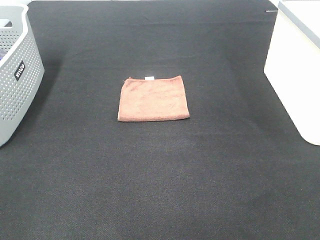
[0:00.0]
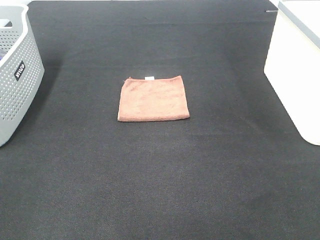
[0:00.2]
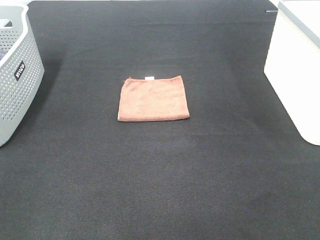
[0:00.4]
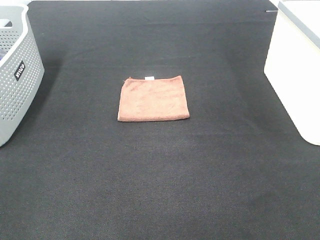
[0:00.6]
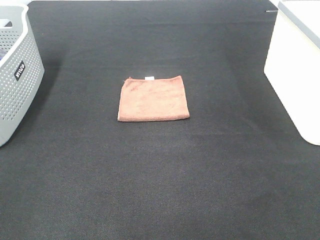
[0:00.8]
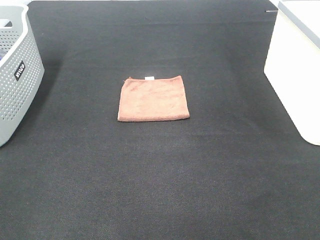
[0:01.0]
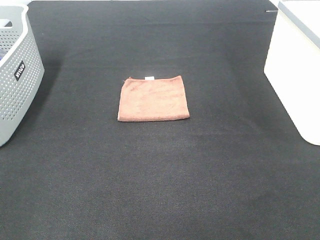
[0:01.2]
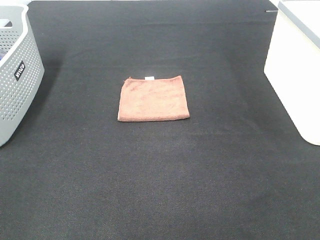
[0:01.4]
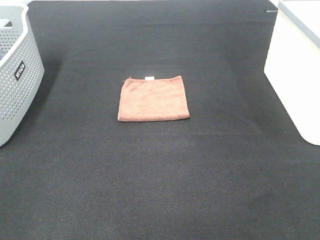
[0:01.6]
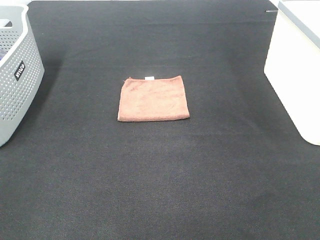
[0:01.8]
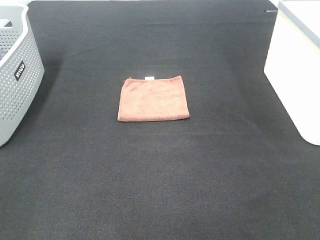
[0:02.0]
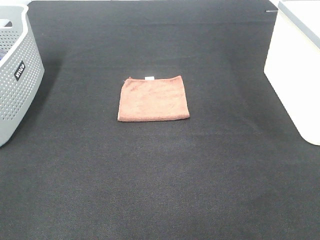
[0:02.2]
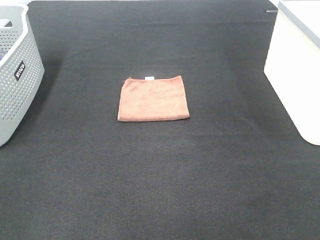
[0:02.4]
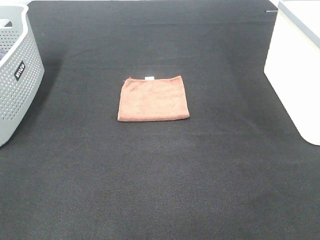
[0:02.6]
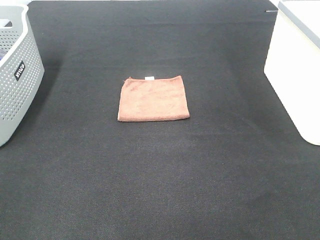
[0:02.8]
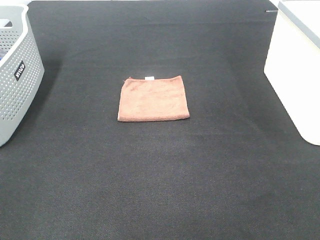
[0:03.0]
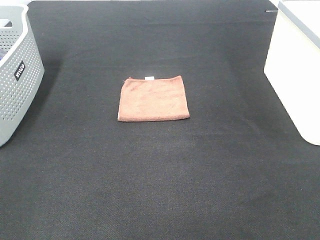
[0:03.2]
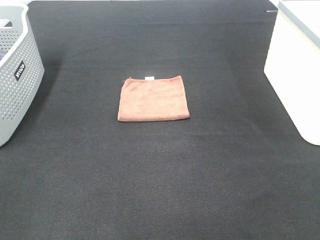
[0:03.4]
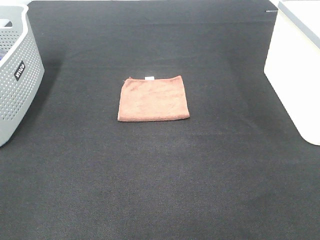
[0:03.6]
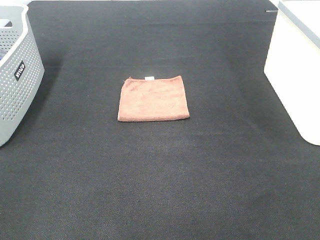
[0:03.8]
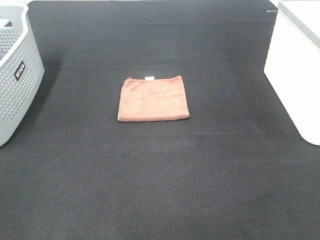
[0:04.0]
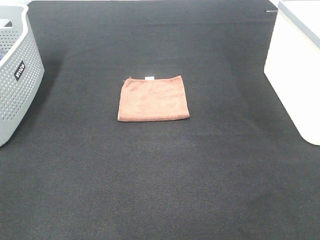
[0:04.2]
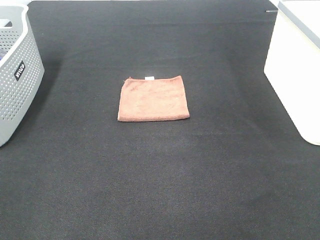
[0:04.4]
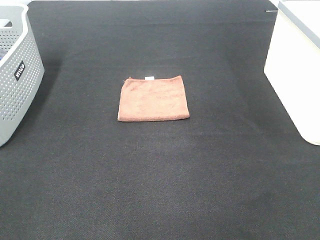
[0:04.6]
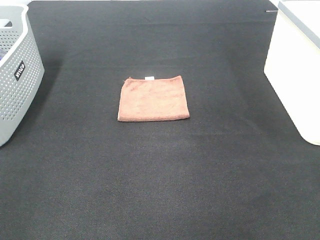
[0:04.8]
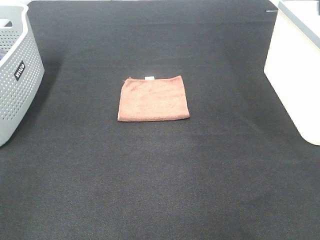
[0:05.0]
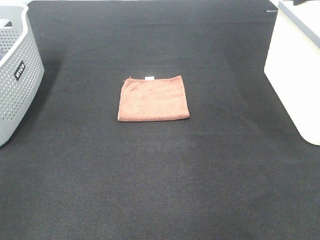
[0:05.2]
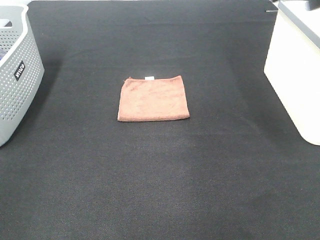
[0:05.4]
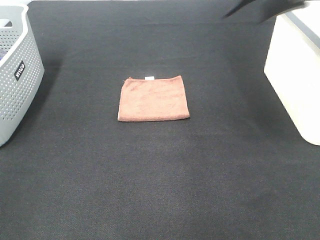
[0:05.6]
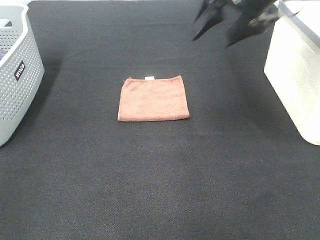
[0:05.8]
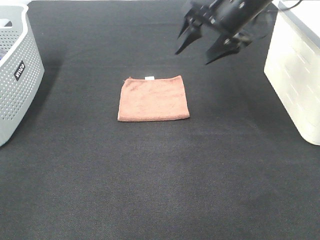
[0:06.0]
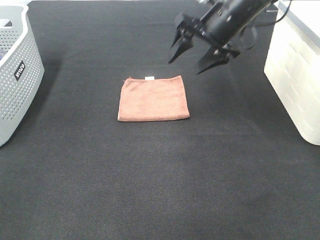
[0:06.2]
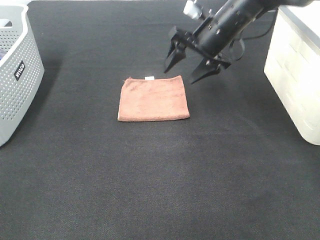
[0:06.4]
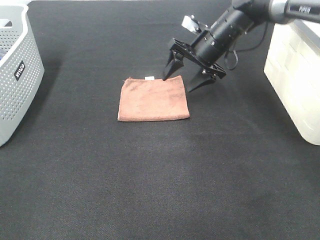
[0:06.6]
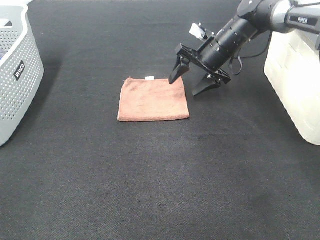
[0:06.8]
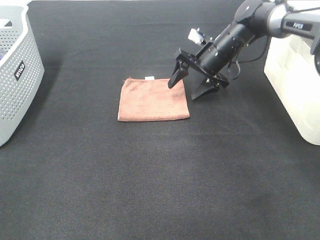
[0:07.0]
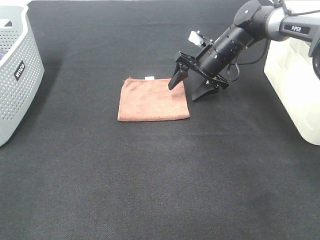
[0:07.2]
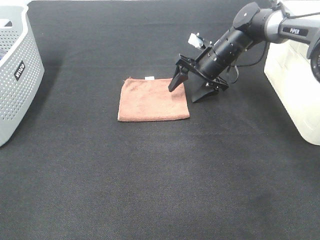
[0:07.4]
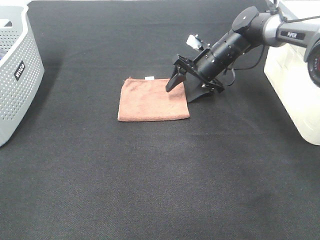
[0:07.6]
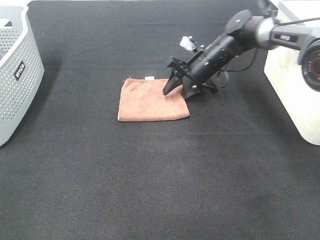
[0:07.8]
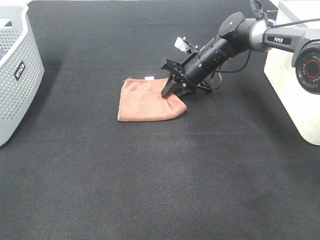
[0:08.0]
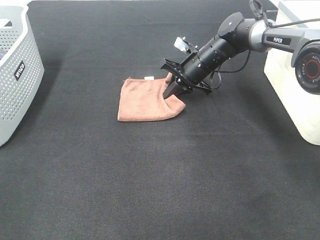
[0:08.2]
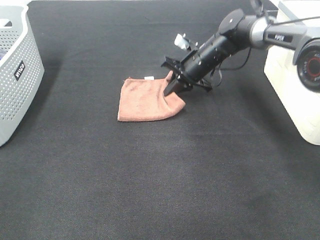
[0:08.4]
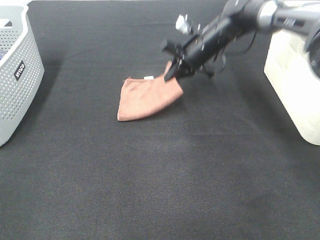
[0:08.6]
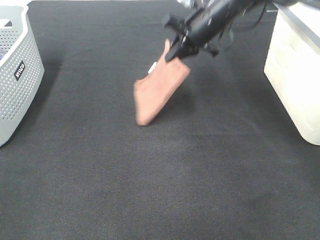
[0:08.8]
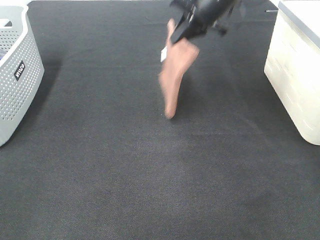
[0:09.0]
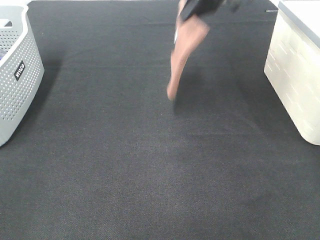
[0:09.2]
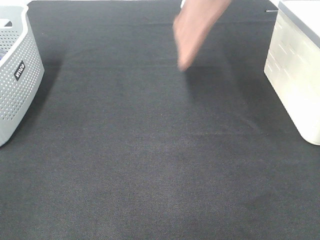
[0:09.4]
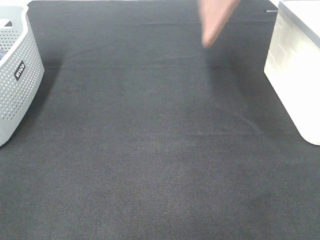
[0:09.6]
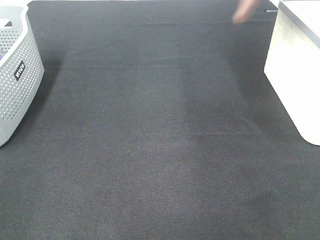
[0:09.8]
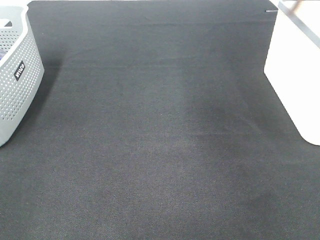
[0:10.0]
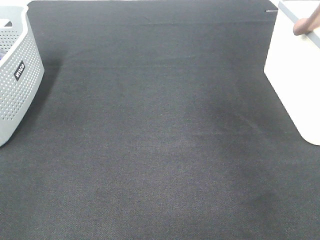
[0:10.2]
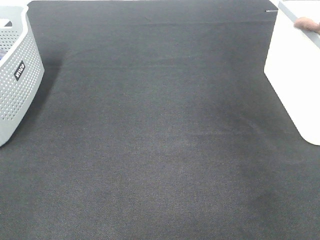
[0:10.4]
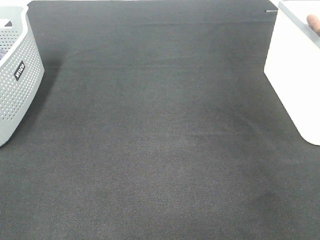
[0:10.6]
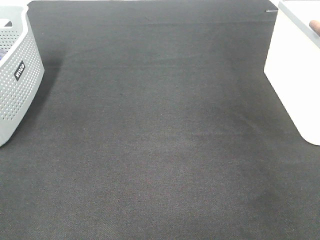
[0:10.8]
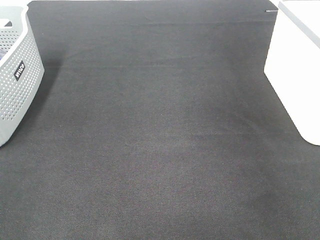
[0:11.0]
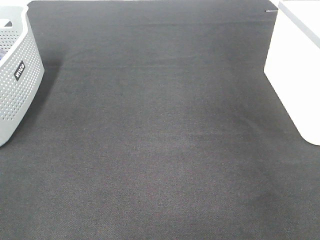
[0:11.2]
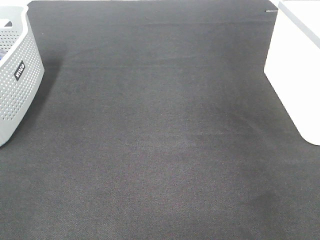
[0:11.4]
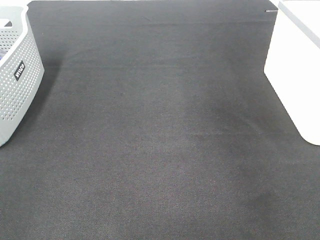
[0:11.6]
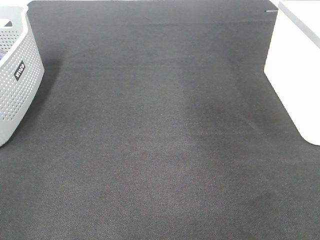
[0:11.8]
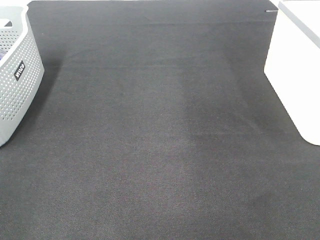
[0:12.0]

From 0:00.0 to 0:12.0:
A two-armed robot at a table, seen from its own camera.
Step, from 0:00.0 to 0:08.2: Right hand: grab the folded brown towel.
Step, from 0:08.4 to 0:11.2: Right hand: place the brown towel in right basket.
From 0:00.0 to 0:03.0: The two grippers keep their place.
From 0:04.4 to 0:06.0: The right gripper shifts approximately 40 cm forward.
From 0:06.0 to 0:07.6: The right gripper moves downward and forward, about 15 cm.
From 0:07.6 to 0:09.0: The right gripper travels upward by roughly 20 cm, and closes its fingers.
From 0:09.0 to 0:10.4: The right gripper moves to the right and upward, some 30 cm.

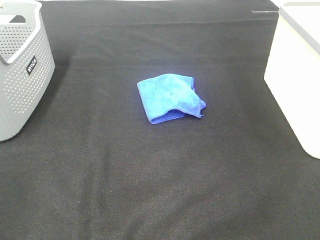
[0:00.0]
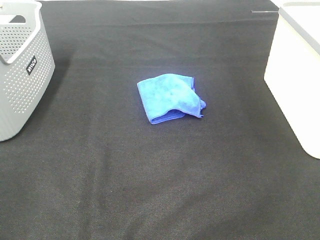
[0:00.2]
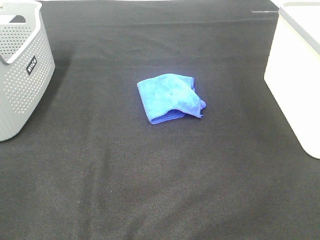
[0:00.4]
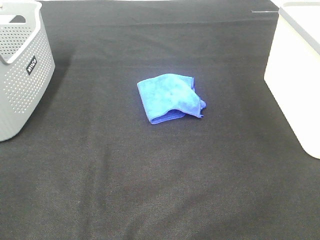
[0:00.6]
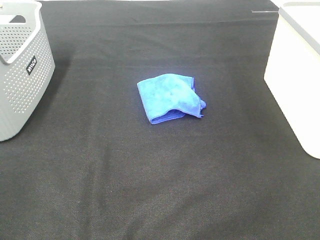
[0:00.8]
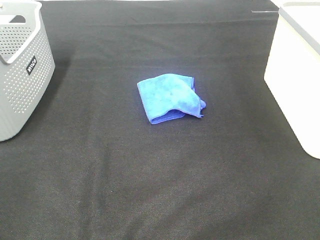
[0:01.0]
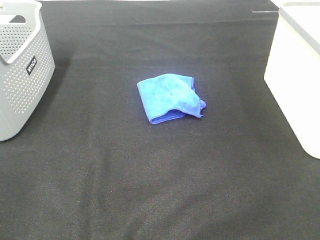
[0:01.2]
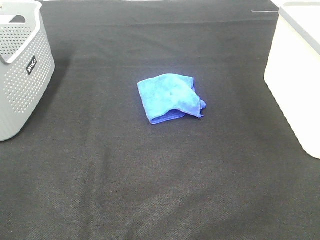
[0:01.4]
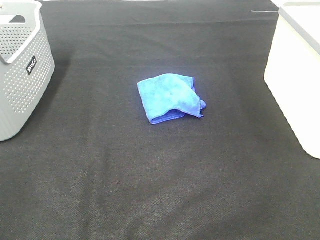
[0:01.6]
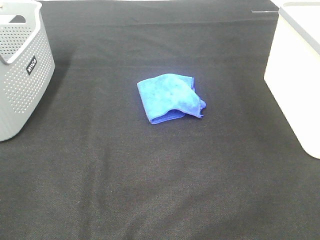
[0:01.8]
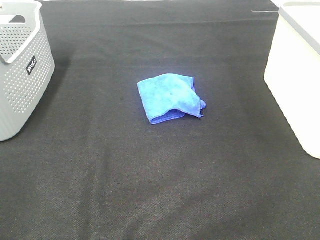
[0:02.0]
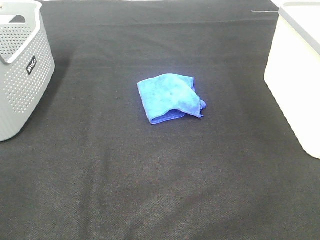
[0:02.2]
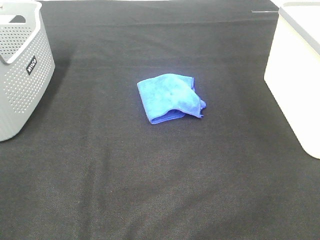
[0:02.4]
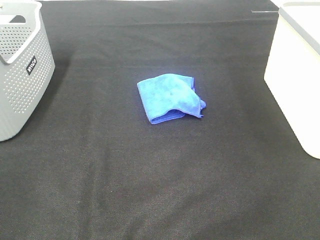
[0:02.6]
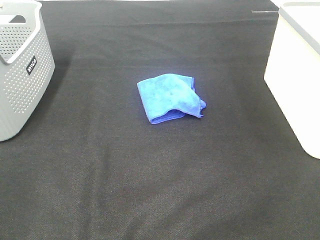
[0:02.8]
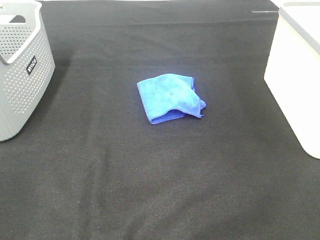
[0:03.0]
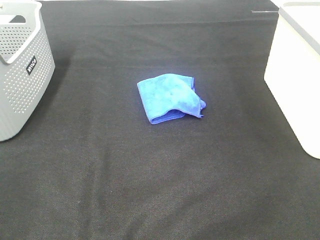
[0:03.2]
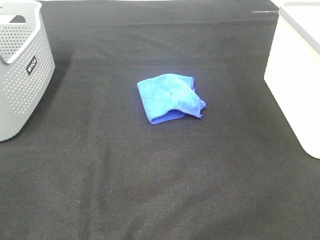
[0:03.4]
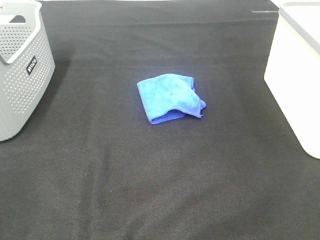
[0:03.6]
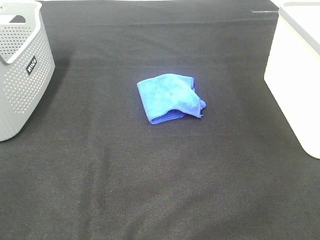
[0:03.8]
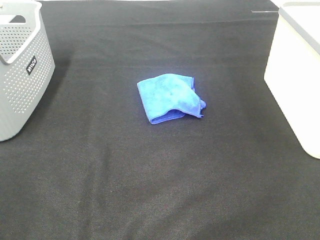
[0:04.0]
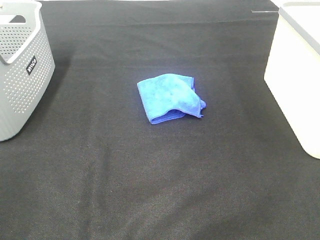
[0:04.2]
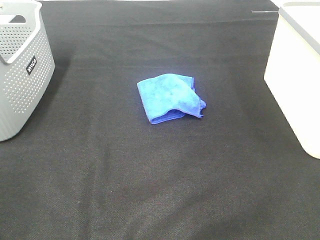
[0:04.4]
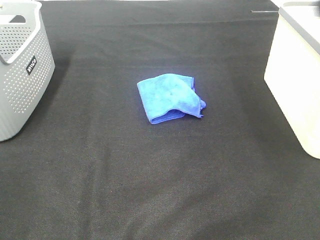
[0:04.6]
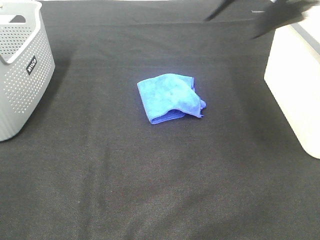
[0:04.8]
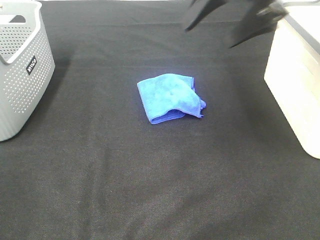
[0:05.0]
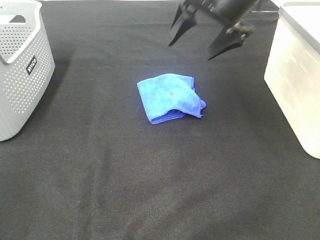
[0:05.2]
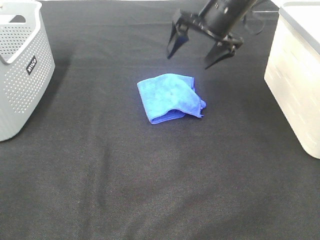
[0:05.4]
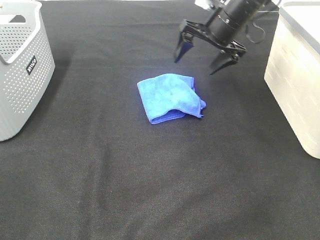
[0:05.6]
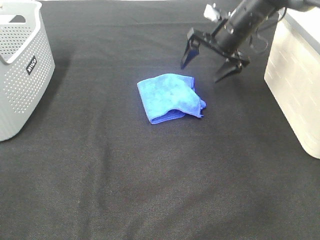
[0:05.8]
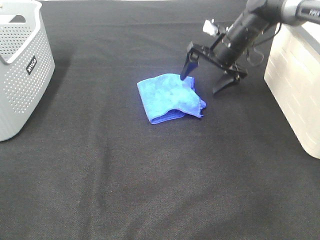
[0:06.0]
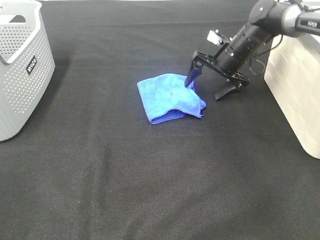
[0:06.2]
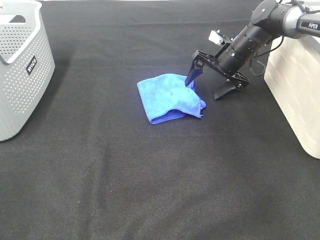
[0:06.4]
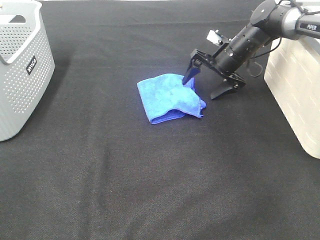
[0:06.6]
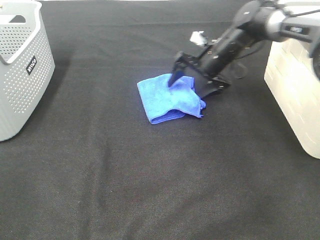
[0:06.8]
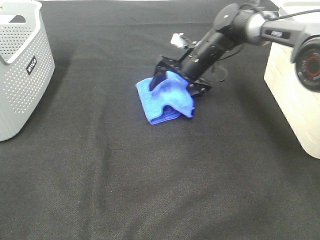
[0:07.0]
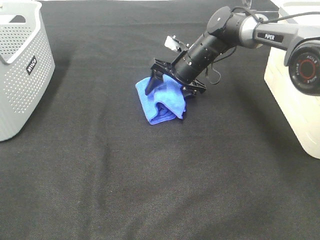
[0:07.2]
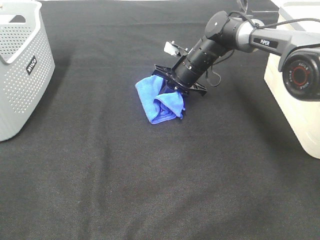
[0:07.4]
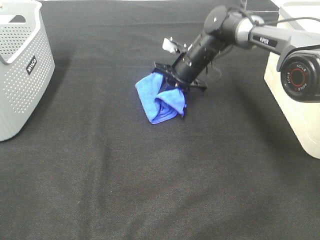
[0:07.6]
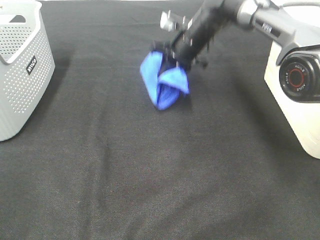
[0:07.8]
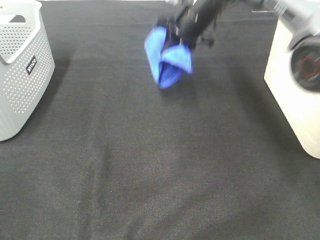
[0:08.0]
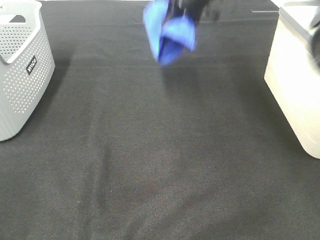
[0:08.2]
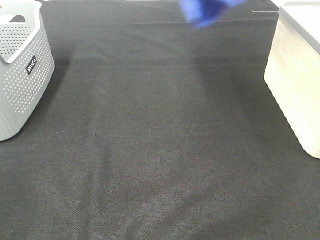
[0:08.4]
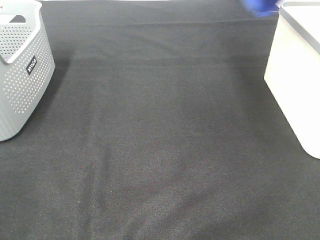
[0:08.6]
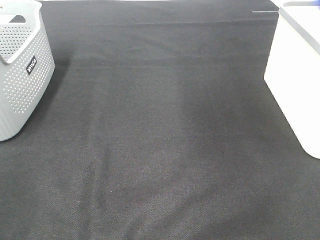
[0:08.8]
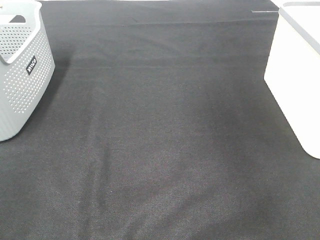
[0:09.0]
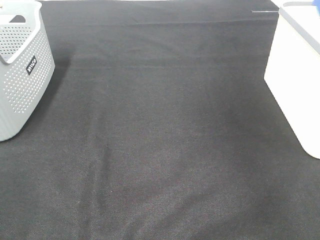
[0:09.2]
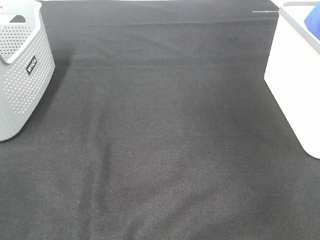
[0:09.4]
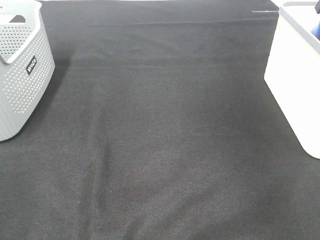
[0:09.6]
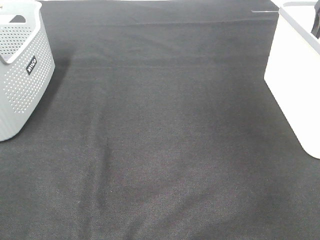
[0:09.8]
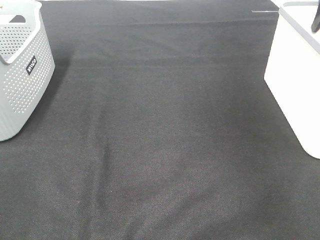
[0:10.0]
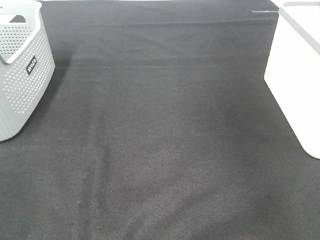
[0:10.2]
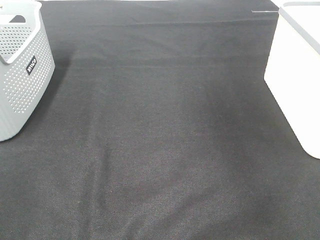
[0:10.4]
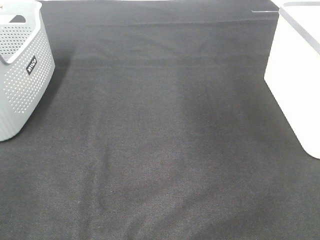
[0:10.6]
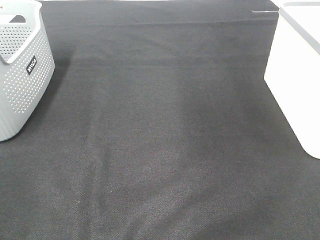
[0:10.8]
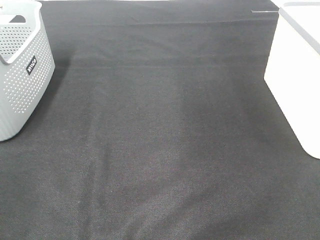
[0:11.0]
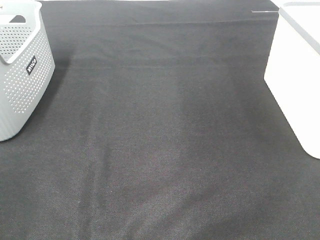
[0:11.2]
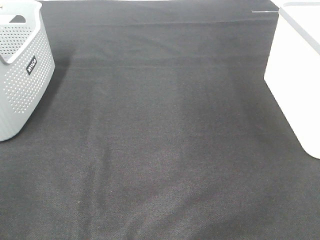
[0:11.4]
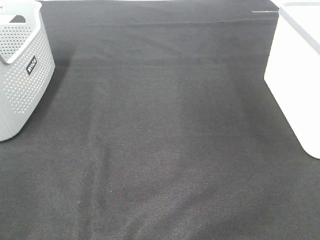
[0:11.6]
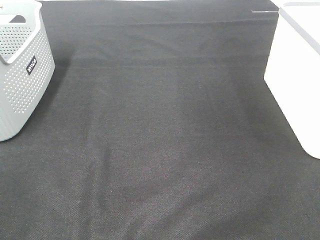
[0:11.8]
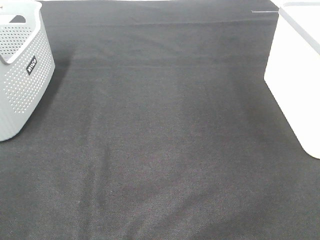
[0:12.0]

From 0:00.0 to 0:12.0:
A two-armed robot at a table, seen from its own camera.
Step, from 0:00.0 to 0:07.4: Right hand: grab the folded blue towel.
Step, from 0:07.6 to 0:09.6: Right hand: place the blue towel in right basket.
From 0:00.0 to 0:03.0: Both grippers stay about where they are.
From 0:04.4 to 0:06.0: The right gripper travels forward and downward by approximately 40 cm.
From 0:06.0 to 0:07.6: The right gripper heads to the left, covering some 10 cm, and closes its fingers.
From 0:07.6 to 0:09.0: The right gripper goes some 40 cm to the right and upward.
